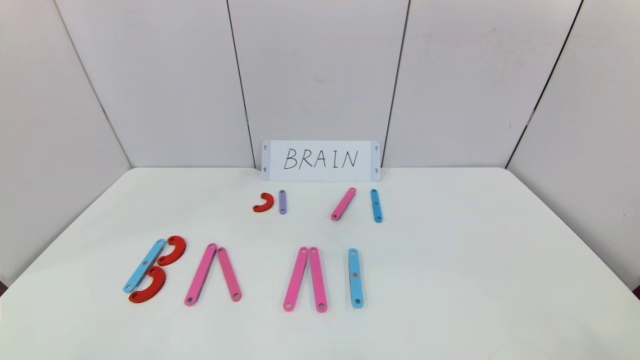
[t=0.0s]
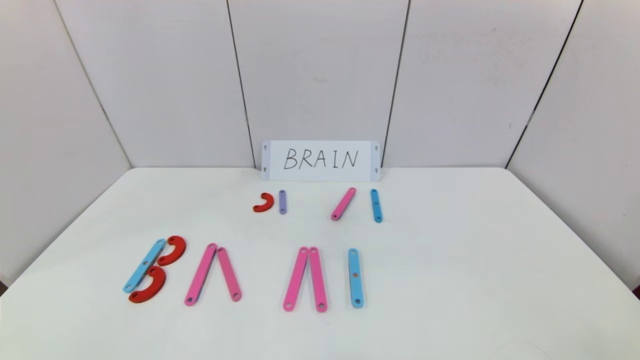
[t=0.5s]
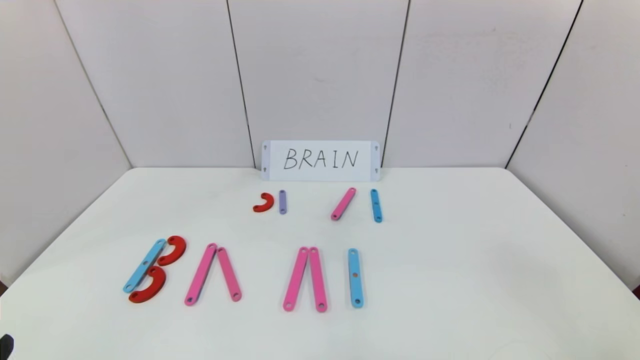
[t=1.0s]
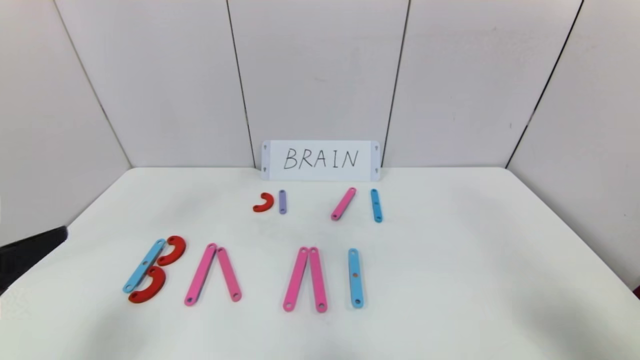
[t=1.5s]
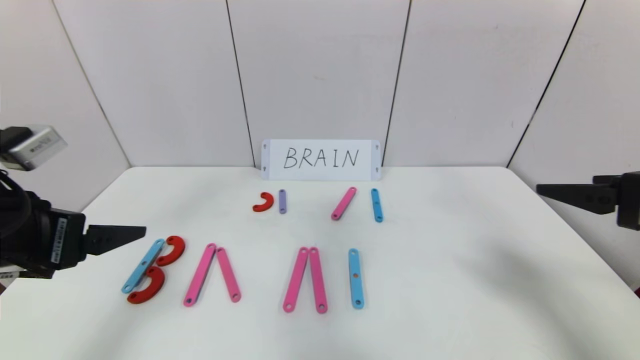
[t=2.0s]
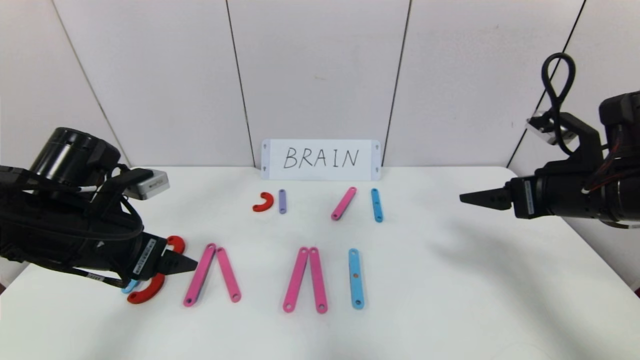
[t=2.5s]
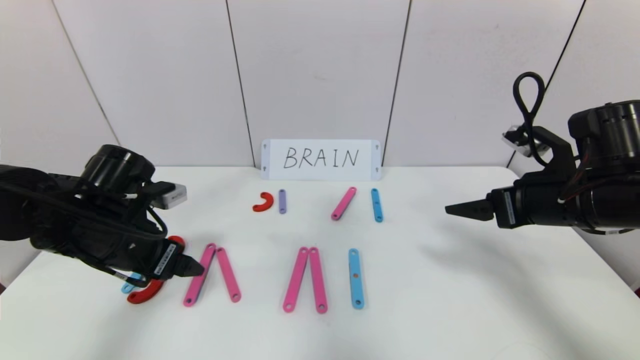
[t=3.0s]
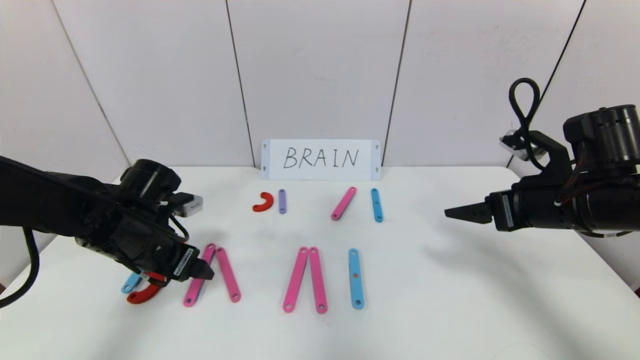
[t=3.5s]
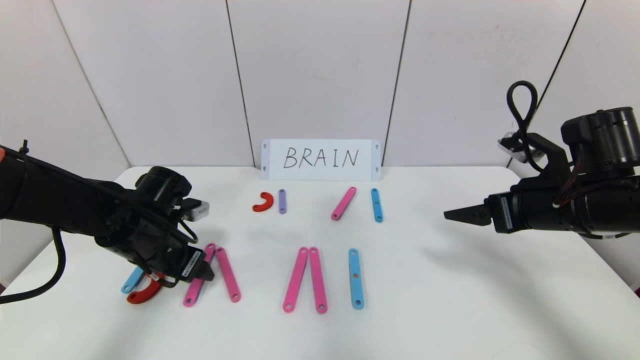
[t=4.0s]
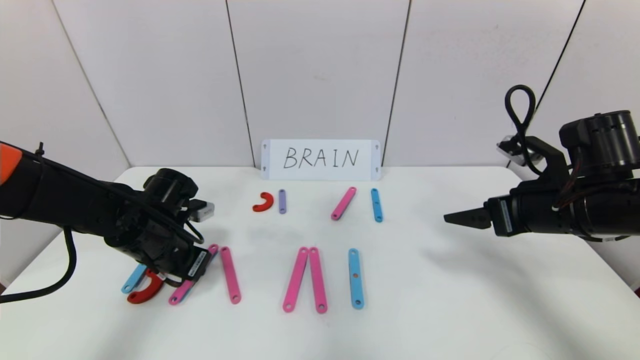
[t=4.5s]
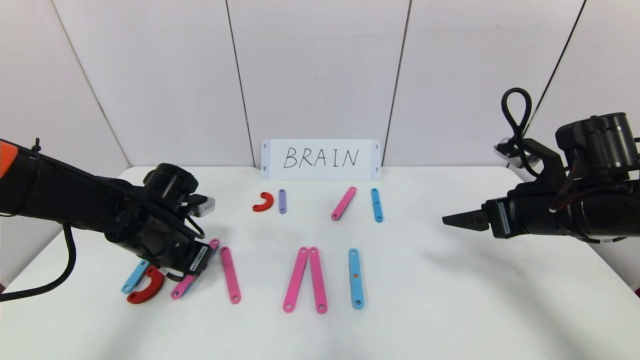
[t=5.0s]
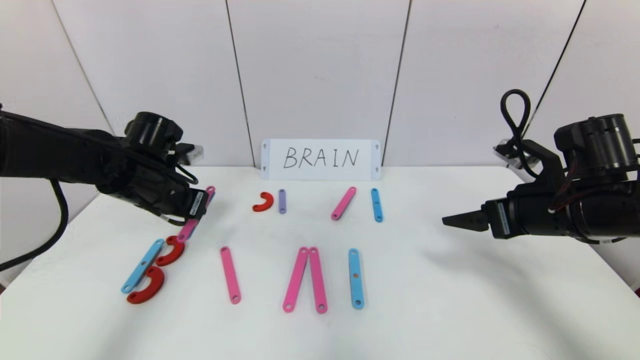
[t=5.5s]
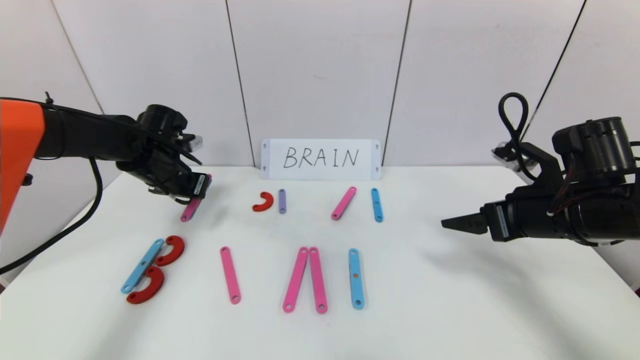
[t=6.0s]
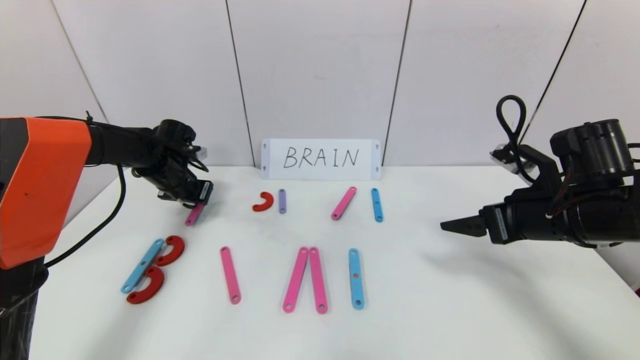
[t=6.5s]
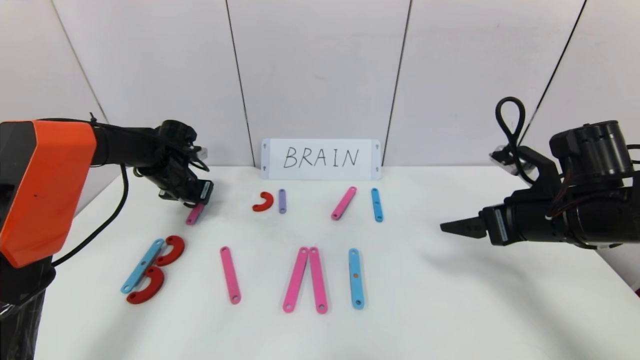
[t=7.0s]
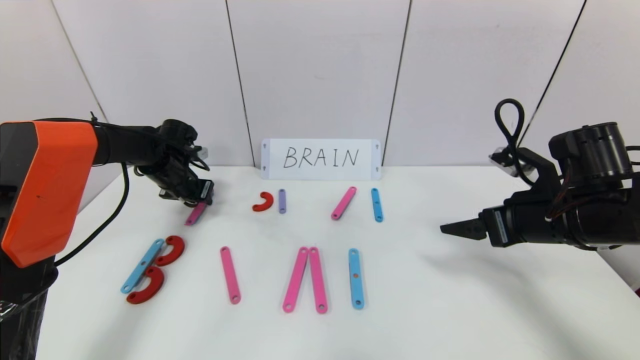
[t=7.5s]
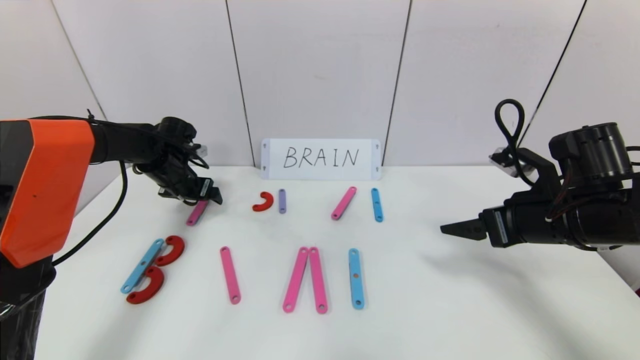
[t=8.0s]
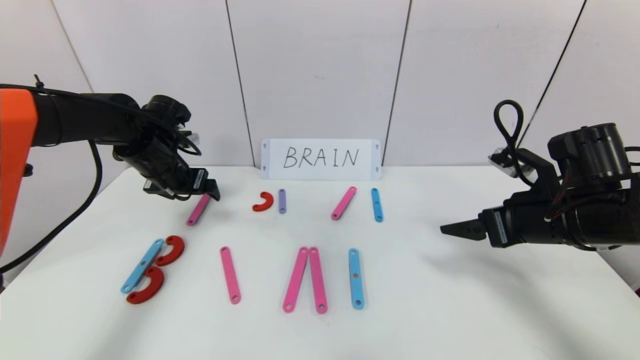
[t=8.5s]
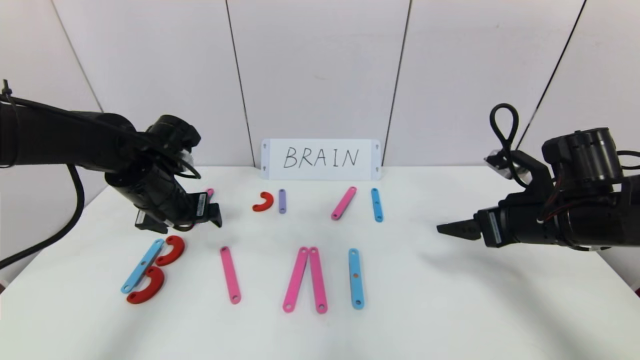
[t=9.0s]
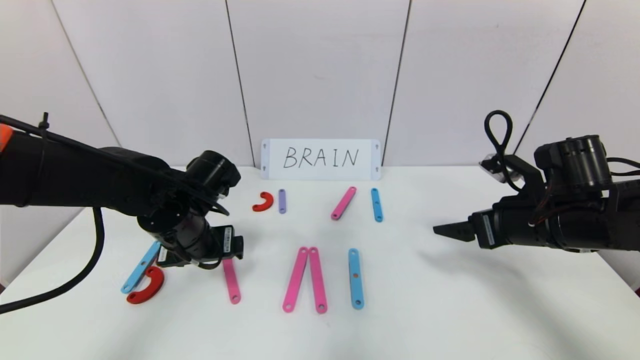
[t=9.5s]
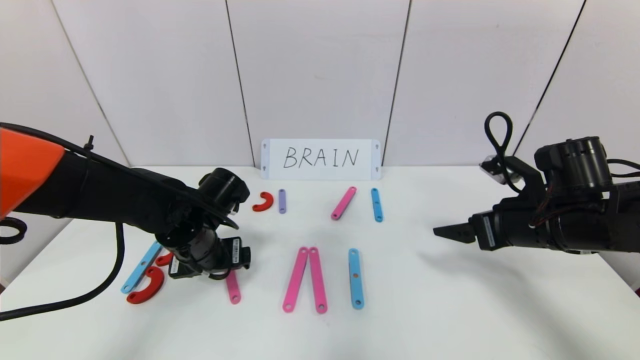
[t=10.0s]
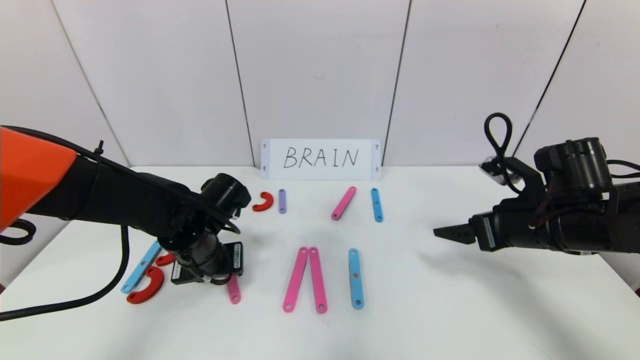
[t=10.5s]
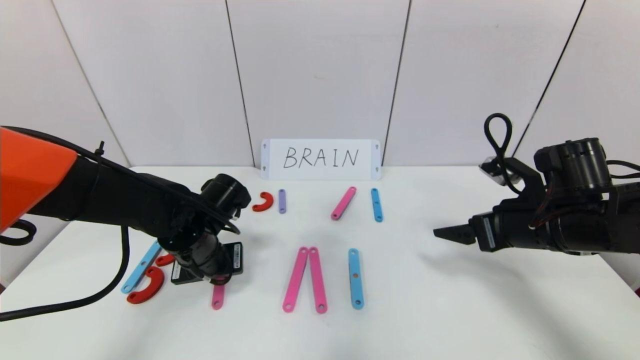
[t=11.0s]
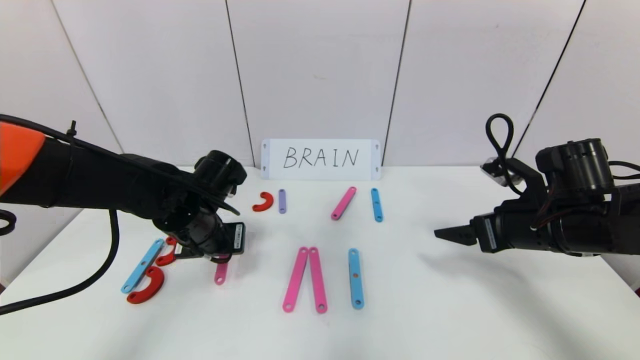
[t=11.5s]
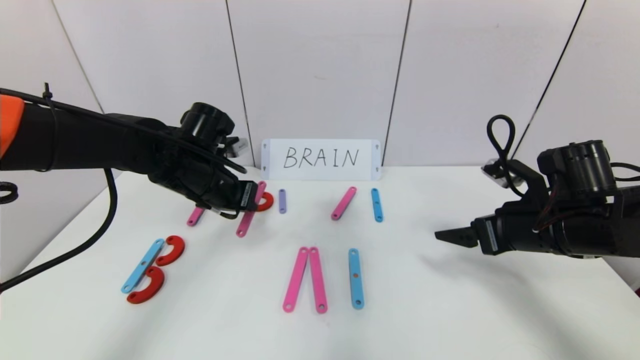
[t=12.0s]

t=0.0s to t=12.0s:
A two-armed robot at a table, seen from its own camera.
Task of the whole recording: rearrange the word baai as brain.
t=0.0s to t=2.0s: Both grippers move forward and upward, some 25 cm.
t=2.0s to t=4.0s: The left gripper goes approximately 20 cm downward and forward, while the right gripper moves forward and downward, some 10 cm.
t=4.0s to t=6.0s: The left gripper goes about 15 cm forward and upward, and closes.
t=6.0s to t=8.0s: The left gripper opens.
t=8.0s to t=10.0s: The left gripper goes roughly 20 cm backward and to the right.
t=10.0s to t=12.0s: The left gripper shifts some 10 cm upward and forward, and closes its fingers.

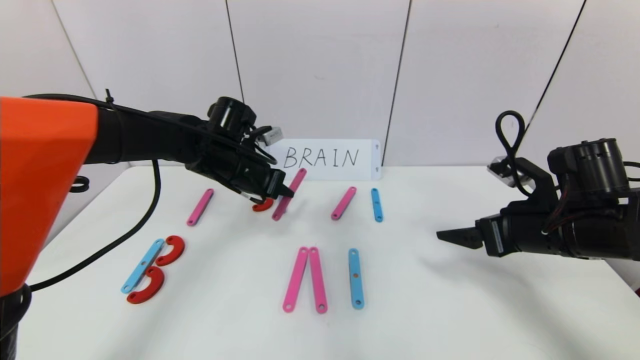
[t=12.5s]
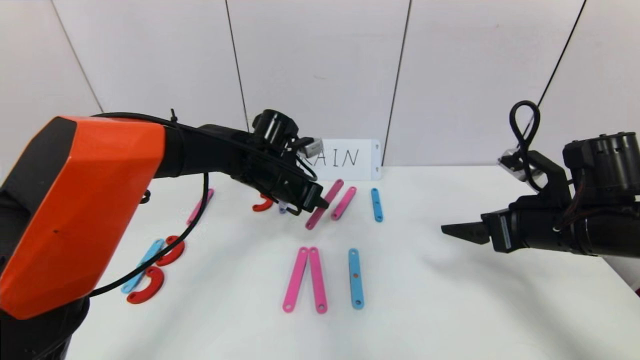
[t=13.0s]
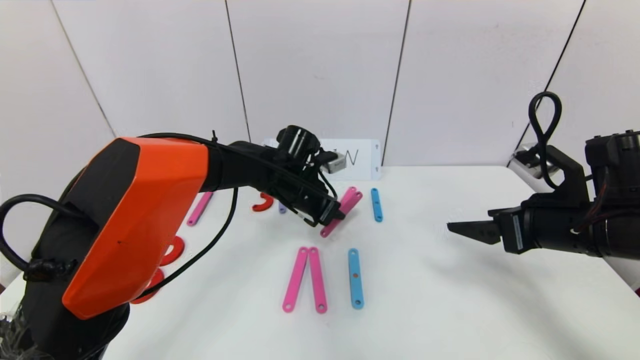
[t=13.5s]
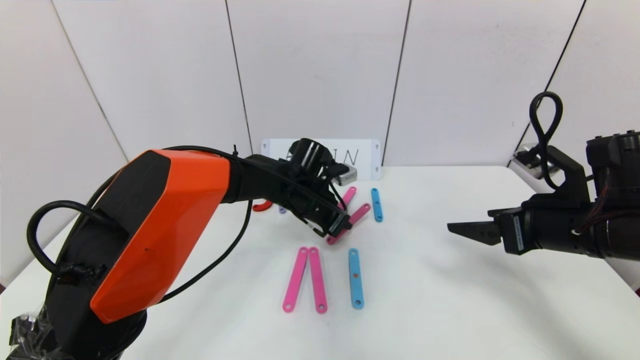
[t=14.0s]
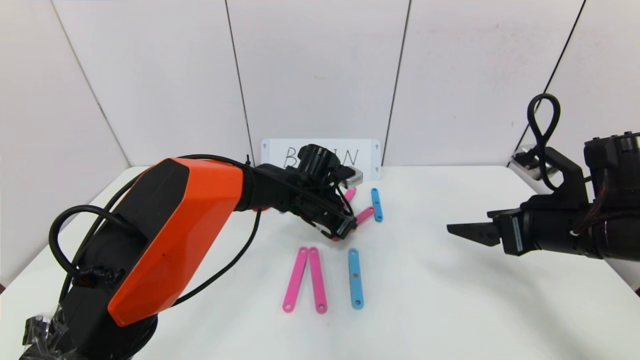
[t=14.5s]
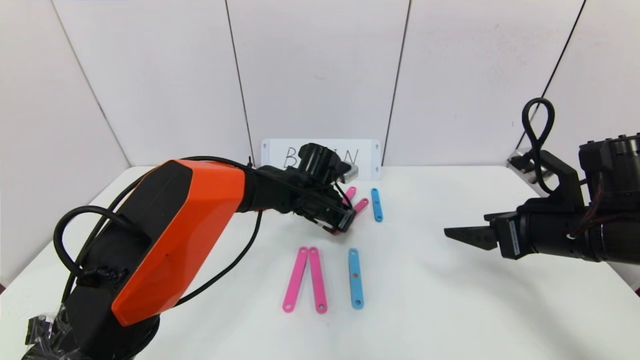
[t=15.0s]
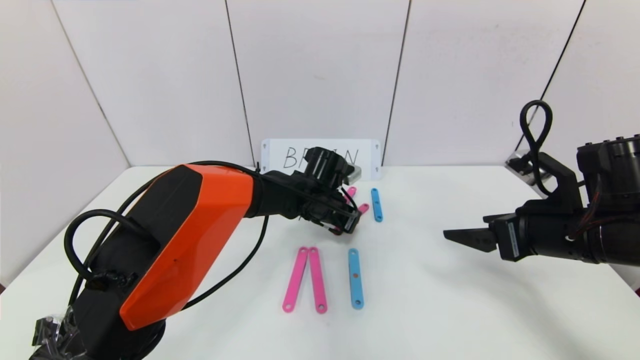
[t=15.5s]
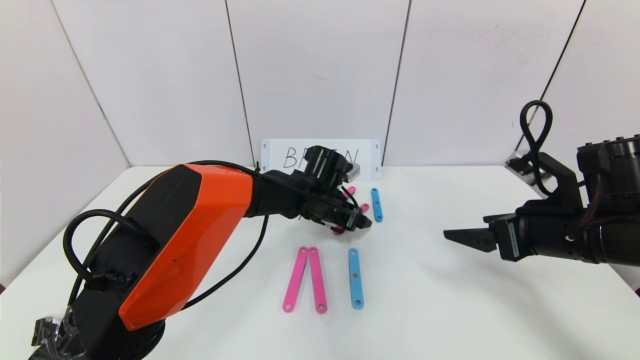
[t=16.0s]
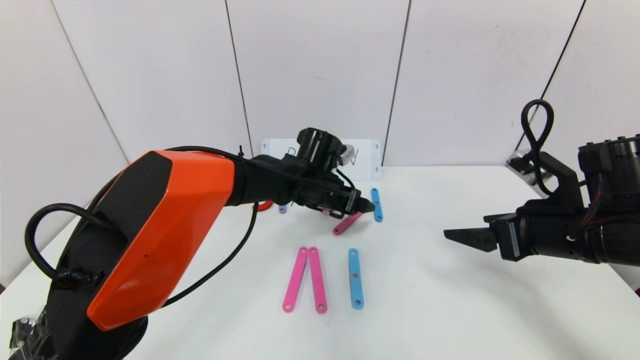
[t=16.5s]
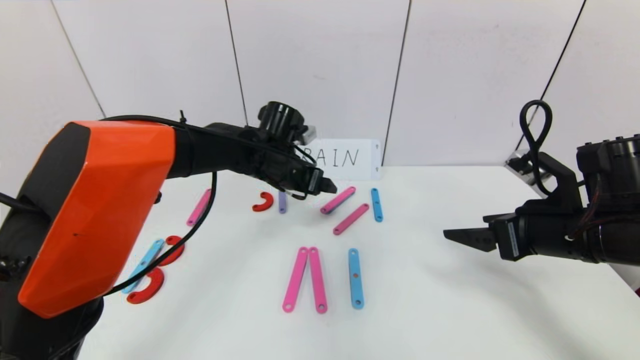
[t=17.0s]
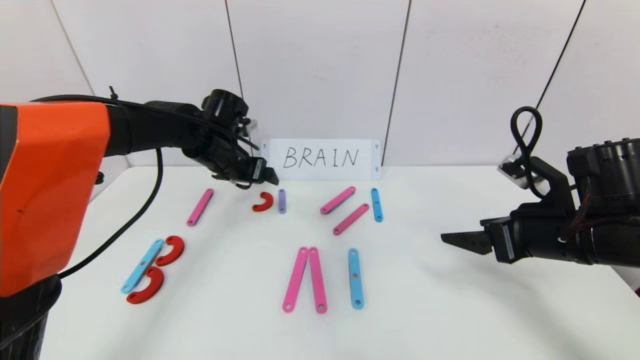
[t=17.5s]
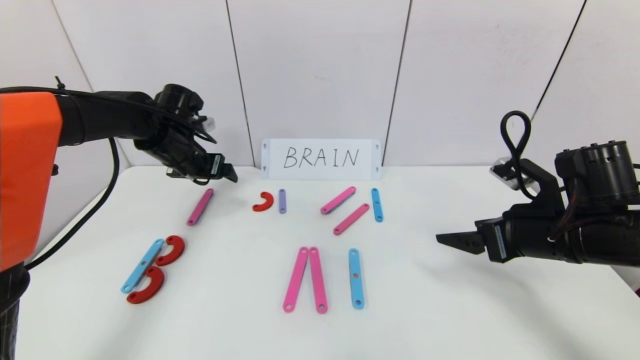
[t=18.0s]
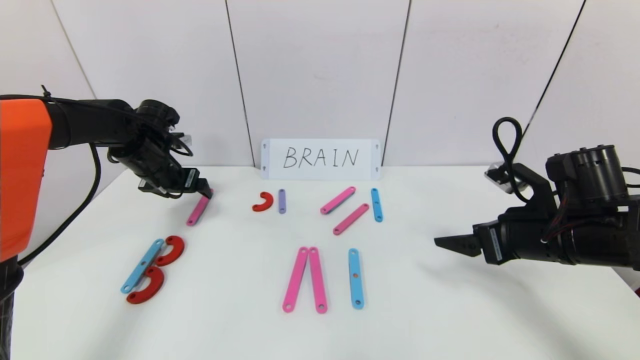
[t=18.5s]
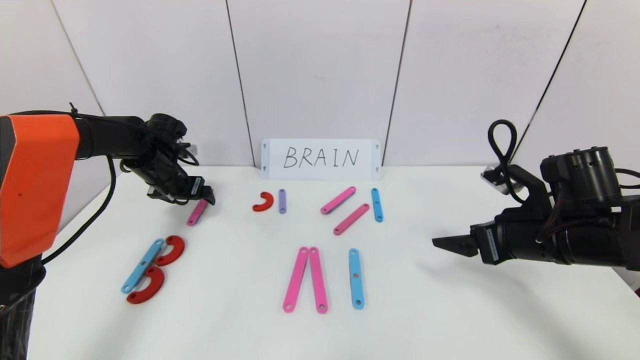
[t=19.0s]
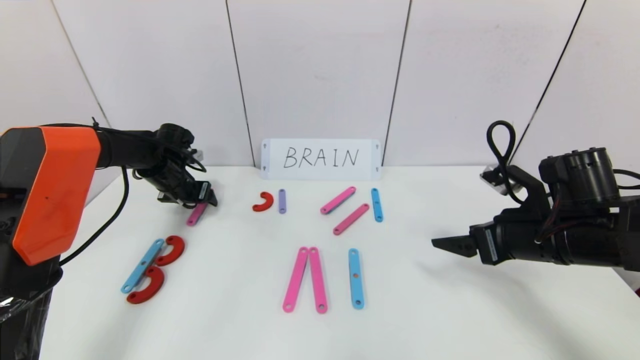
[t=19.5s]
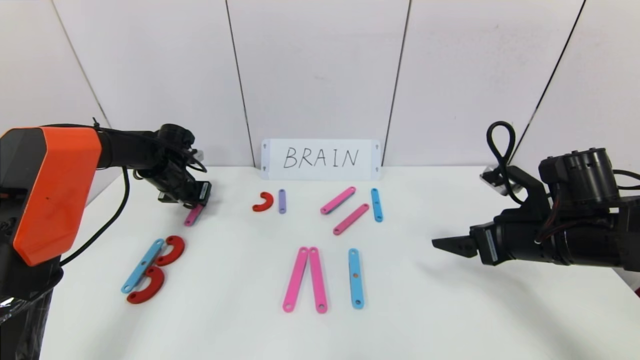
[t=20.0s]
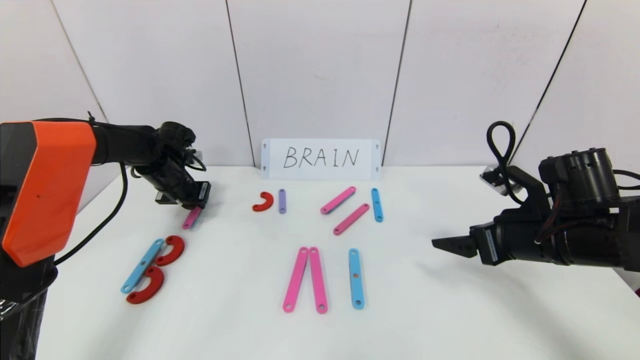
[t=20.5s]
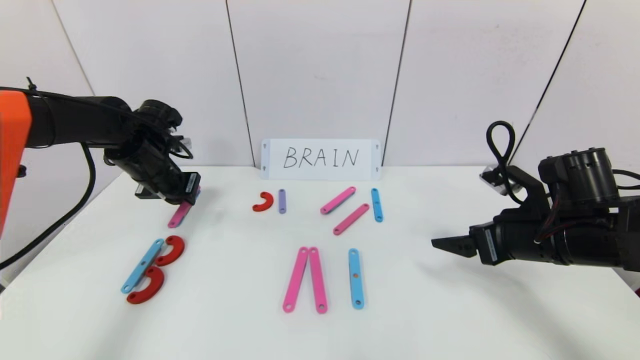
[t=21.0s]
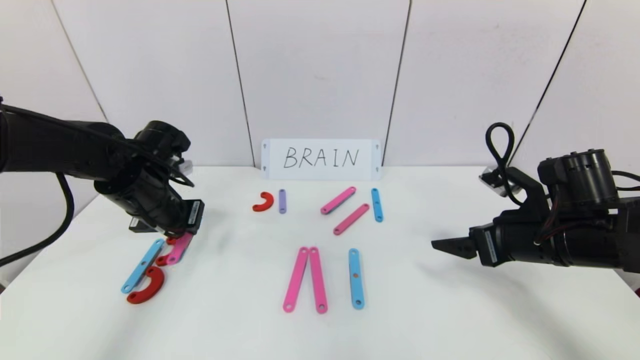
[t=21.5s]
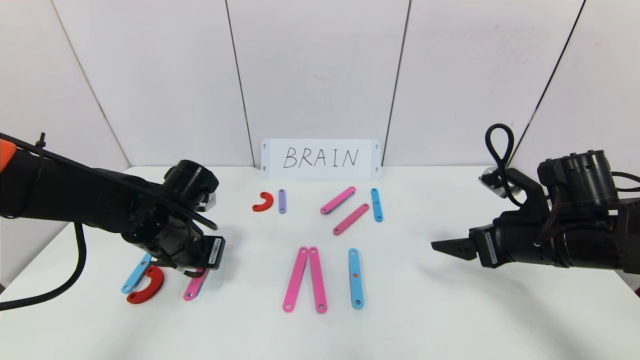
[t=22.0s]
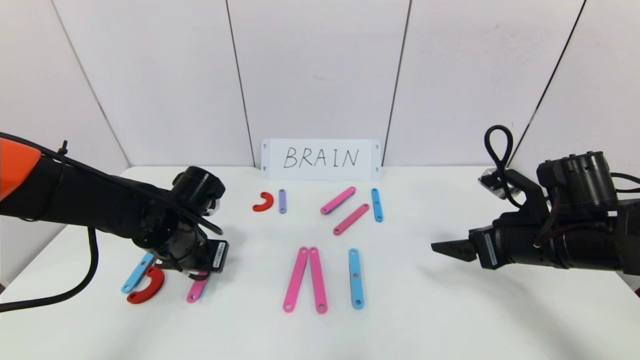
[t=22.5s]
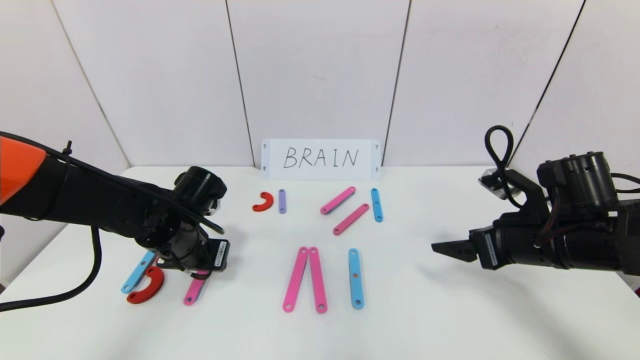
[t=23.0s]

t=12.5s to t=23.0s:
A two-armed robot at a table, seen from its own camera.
Task of the whole recording: rearrange the word baai as brain.
Step, t=12.5s to t=15.5s: Disassemble the second character A.
t=12.5s to t=14.5s: The left gripper moves to the right and downward, approximately 15 cm.
t=14.5s to t=16.5s: The left gripper opens up.
t=16.5s to t=19.0s: The left gripper heads to the left, covering some 30 cm.
t=19.0s to t=21.0s: The left gripper moves backward, about 5 cm, and closes.
t=21.0s to t=23.0s: The left gripper goes roughly 15 cm backward, to the right and downward, and opens up.
